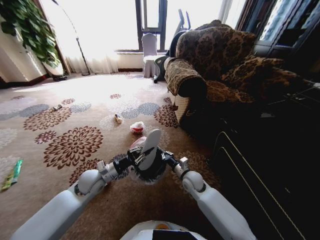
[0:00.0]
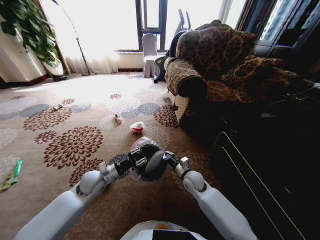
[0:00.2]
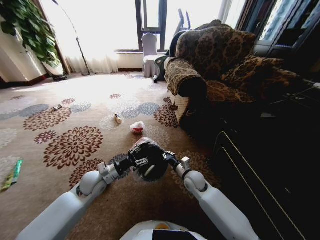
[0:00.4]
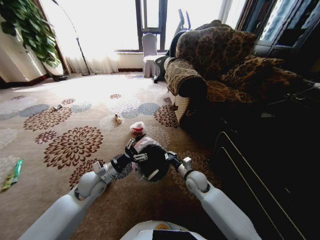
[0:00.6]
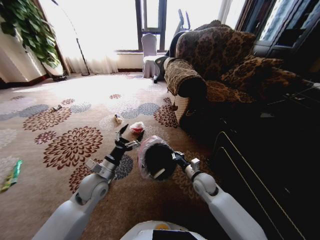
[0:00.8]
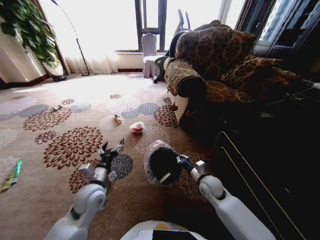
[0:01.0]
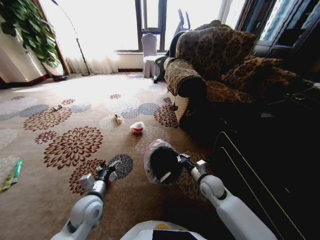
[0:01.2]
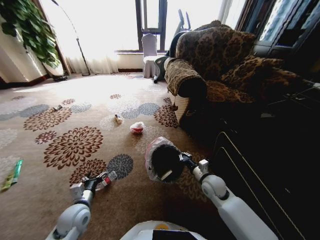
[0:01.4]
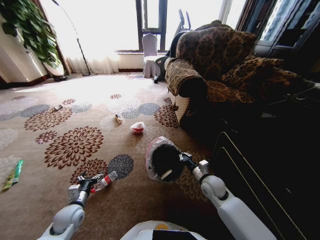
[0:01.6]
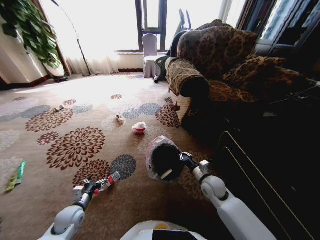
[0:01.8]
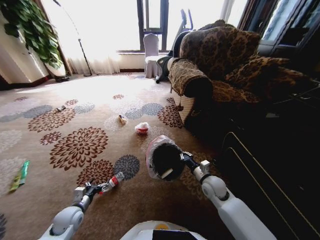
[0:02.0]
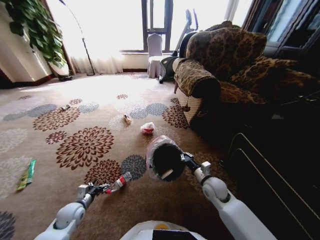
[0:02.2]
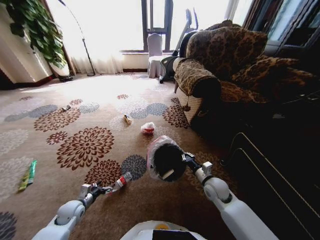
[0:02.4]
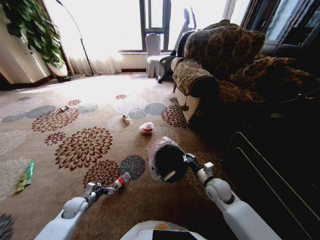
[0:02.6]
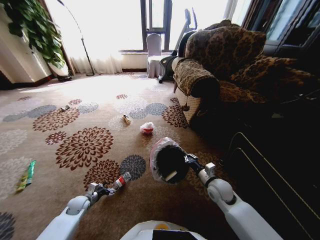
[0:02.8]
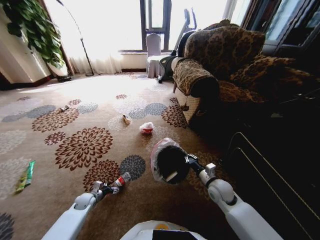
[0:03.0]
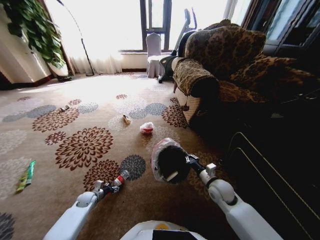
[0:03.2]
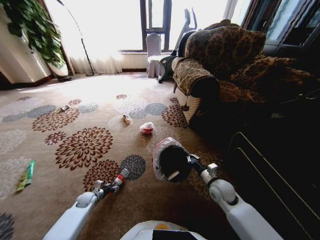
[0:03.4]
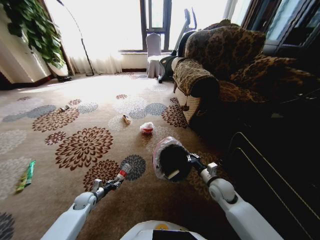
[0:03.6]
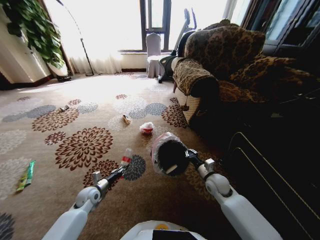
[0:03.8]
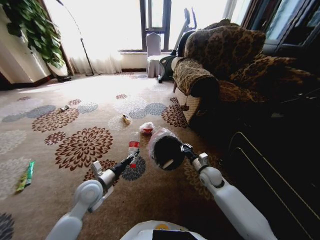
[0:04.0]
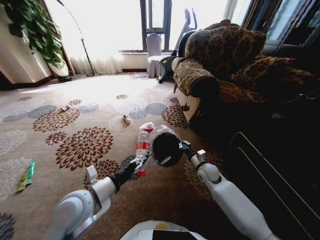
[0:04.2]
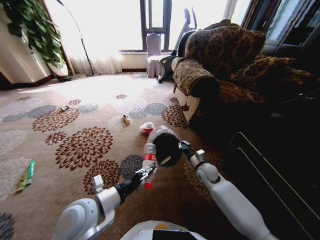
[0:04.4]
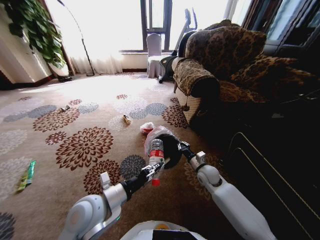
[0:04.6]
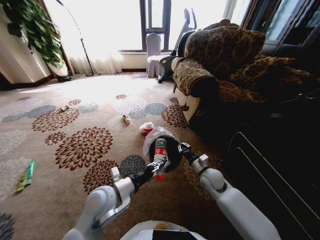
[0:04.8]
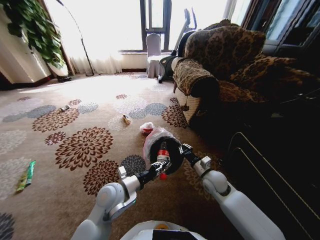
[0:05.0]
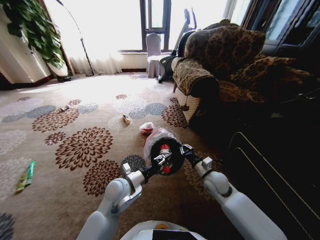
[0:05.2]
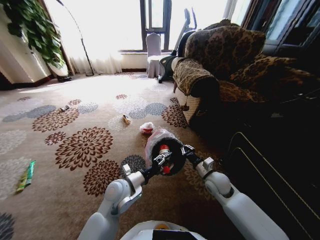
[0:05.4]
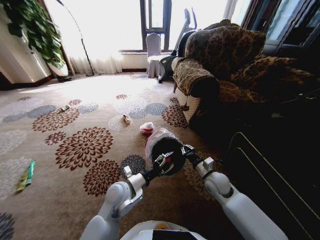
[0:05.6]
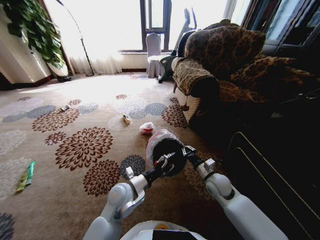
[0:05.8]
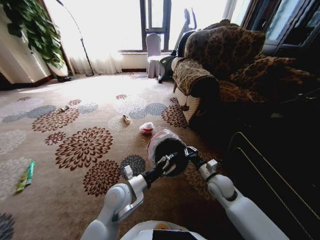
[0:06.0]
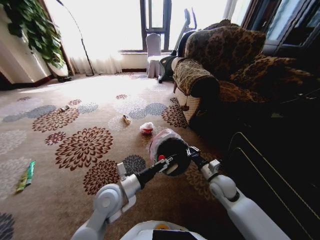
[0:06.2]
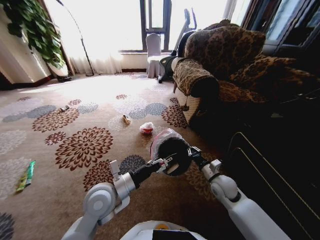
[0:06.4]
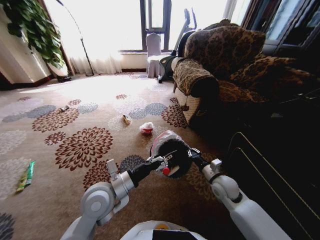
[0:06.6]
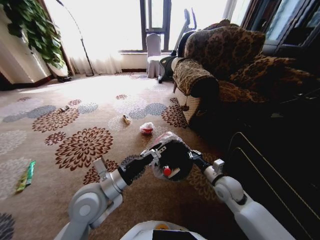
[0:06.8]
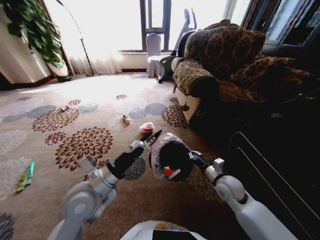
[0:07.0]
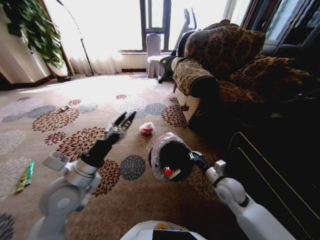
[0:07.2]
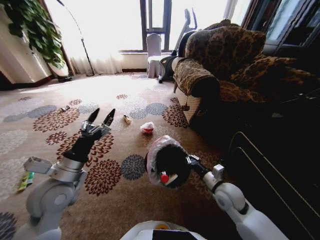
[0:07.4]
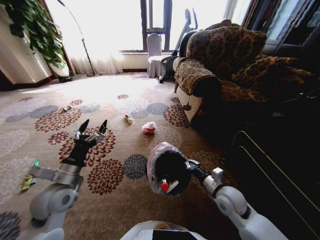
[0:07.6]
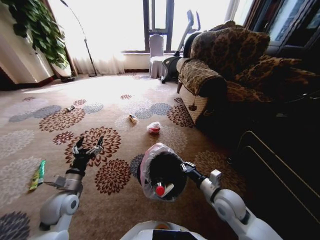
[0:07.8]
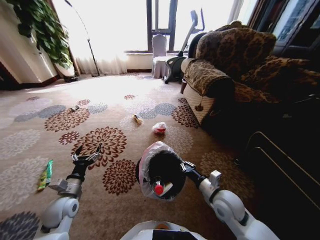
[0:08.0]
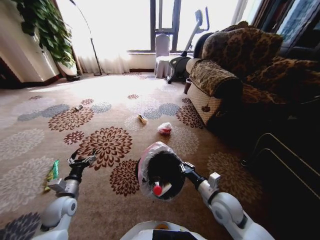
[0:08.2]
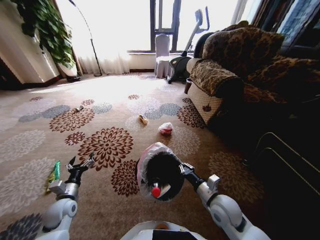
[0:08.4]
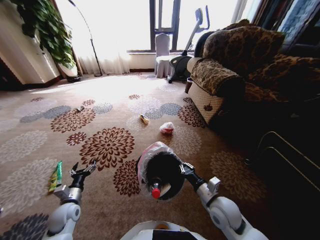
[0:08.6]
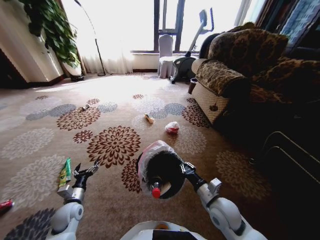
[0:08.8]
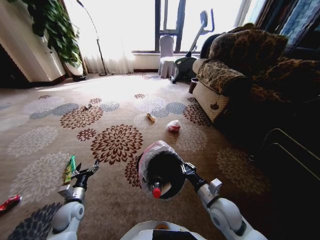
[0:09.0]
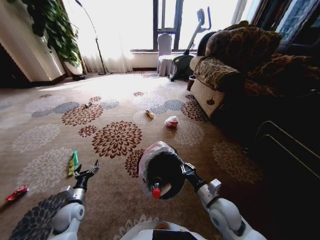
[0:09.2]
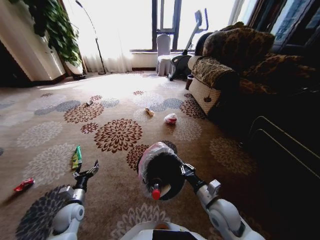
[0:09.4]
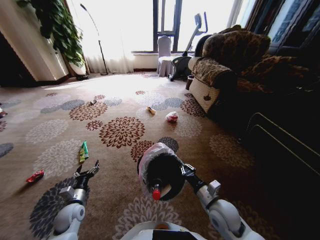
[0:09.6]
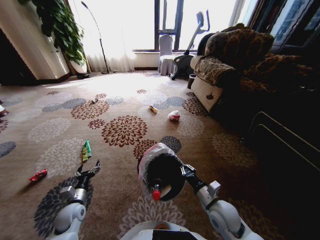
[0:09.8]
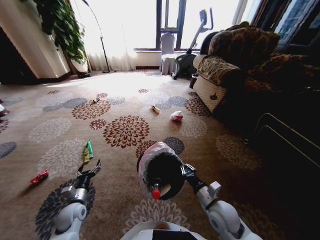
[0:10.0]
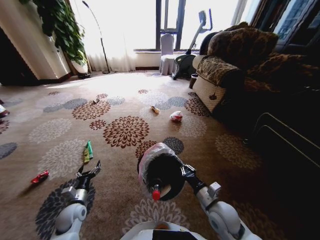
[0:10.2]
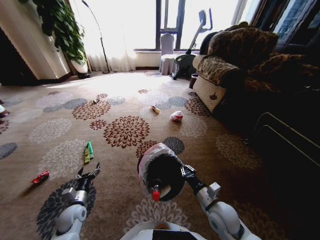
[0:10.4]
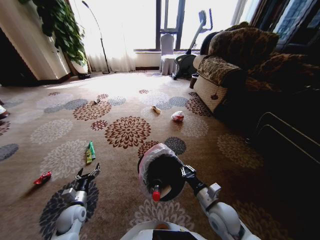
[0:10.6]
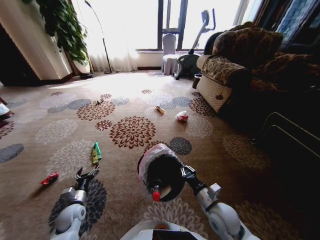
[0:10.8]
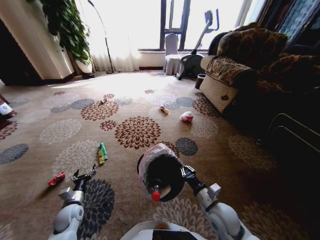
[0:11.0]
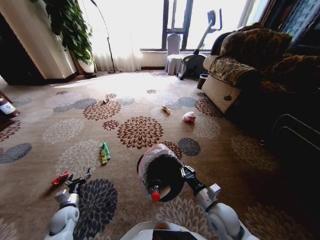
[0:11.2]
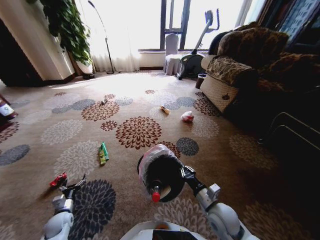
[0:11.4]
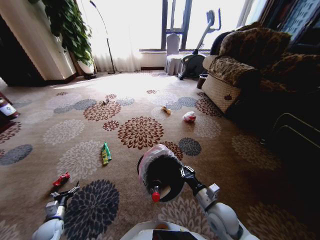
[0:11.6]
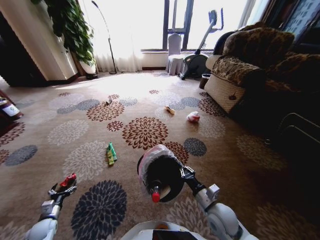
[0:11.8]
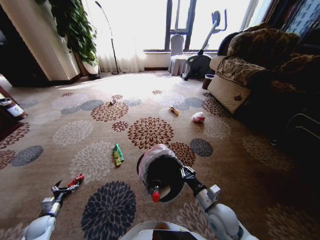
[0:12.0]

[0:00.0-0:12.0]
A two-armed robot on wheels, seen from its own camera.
Task of the whole recording: Pick up the trash from the ground and place it into the trash bin.
0:00.0 to 0:01.6: The left gripper shifts some 15 cm backward, downward and to the left, and opens, while the right gripper shifts some 10 cm to the right.
0:01.6 to 0:03.0: The left gripper is displaced downward and forward by roughly 15 cm.
0:03.0 to 0:04.4: The right gripper is displaced forward by some 10 cm; the left gripper heads upward and to the right, covering roughly 35 cm, and closes its fingers.
0:04.4 to 0:06.0: The left gripper heads to the right, downward and forward, covering some 10 cm, and opens its fingers. Meanwhile the right gripper goes about 5 cm backward.
0:06.0 to 0:07.6: The right gripper heads backward, covering approximately 5 cm, while the left gripper moves to the left, about 20 cm.
0:07.6 to 0:09.0: The left gripper goes some 20 cm downward. Meanwhile the right gripper changes place by about 5 cm.
0:10.4 to 0:12.0: The left gripper shifts roughly 20 cm to the left and downward.

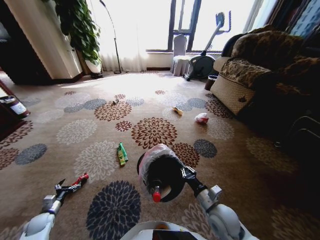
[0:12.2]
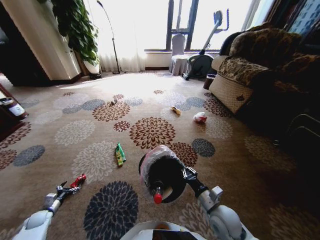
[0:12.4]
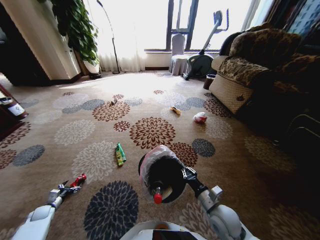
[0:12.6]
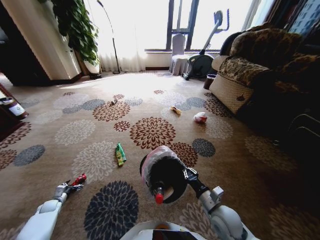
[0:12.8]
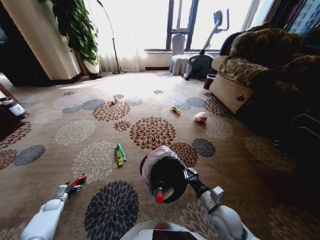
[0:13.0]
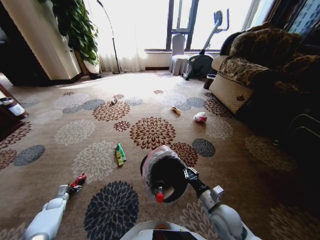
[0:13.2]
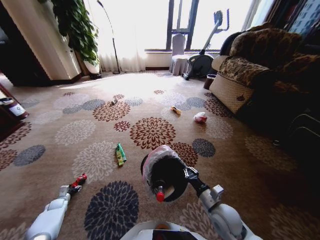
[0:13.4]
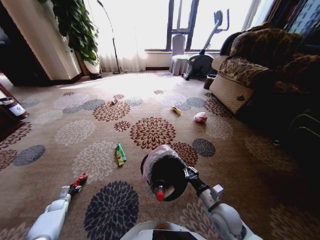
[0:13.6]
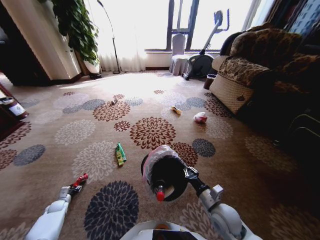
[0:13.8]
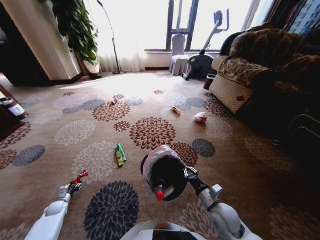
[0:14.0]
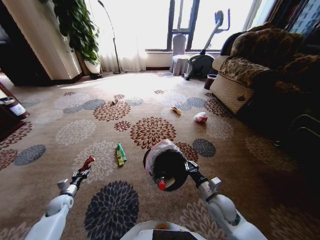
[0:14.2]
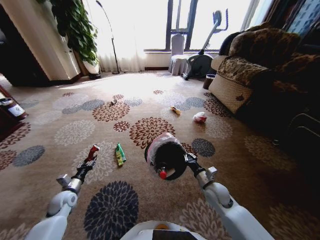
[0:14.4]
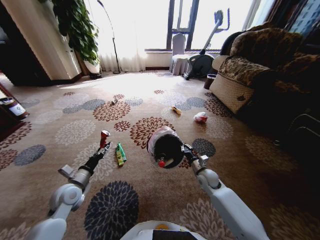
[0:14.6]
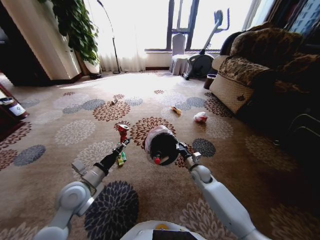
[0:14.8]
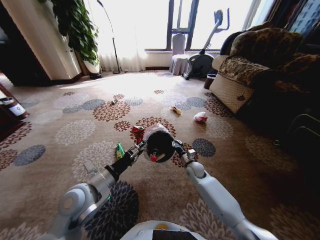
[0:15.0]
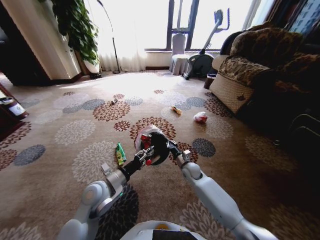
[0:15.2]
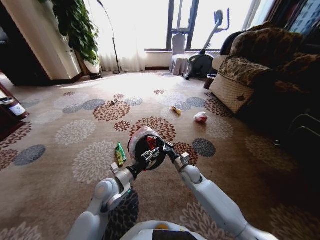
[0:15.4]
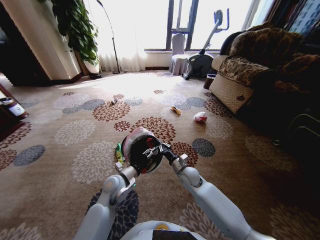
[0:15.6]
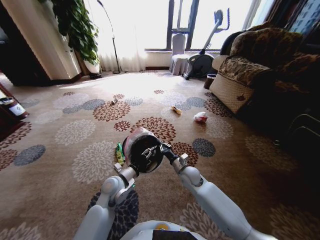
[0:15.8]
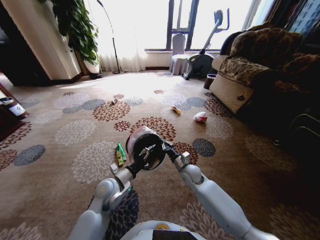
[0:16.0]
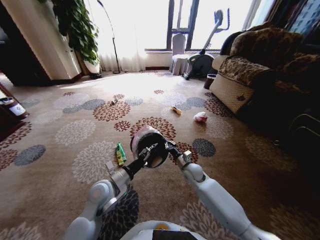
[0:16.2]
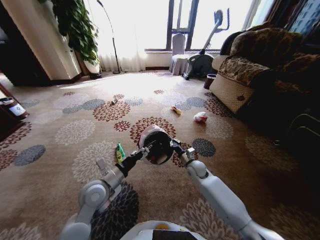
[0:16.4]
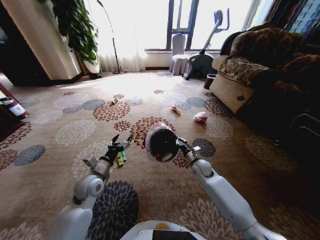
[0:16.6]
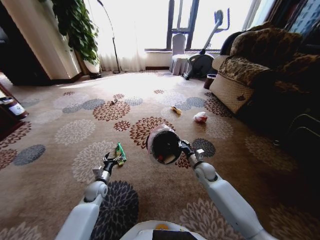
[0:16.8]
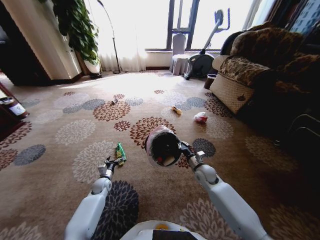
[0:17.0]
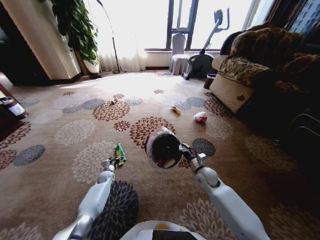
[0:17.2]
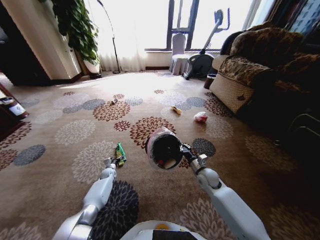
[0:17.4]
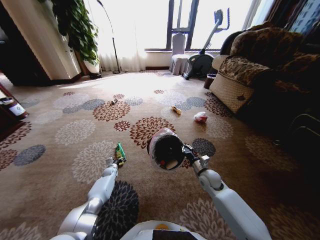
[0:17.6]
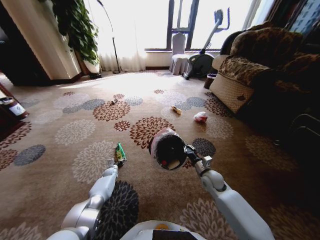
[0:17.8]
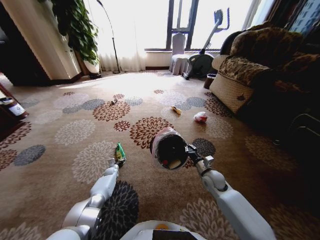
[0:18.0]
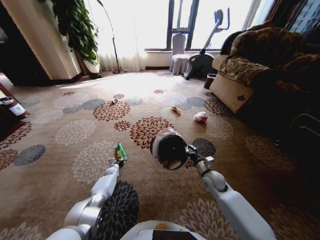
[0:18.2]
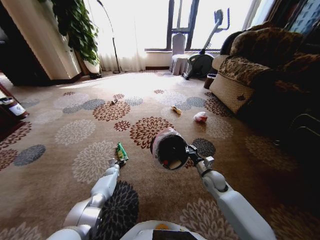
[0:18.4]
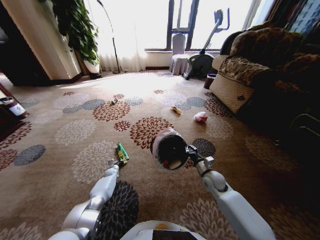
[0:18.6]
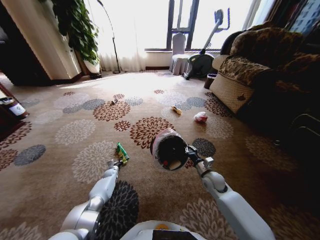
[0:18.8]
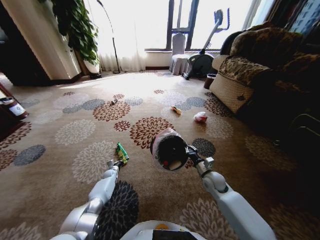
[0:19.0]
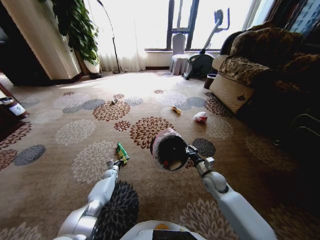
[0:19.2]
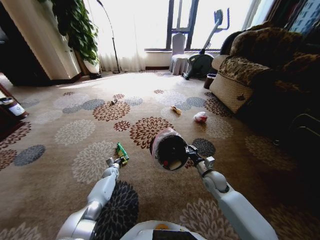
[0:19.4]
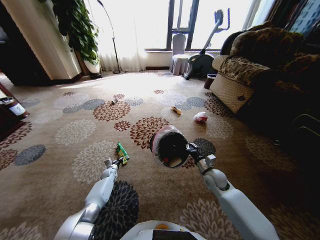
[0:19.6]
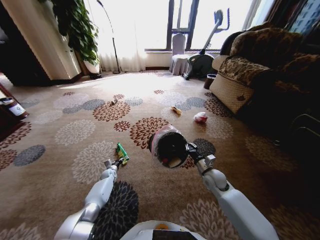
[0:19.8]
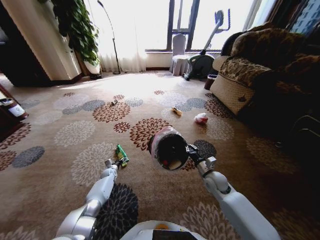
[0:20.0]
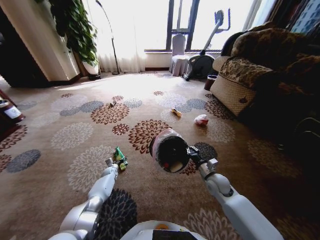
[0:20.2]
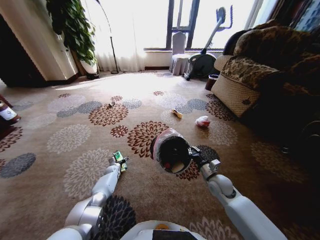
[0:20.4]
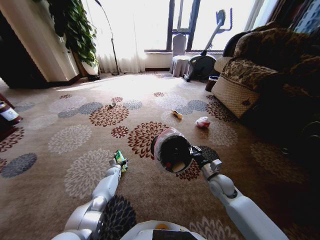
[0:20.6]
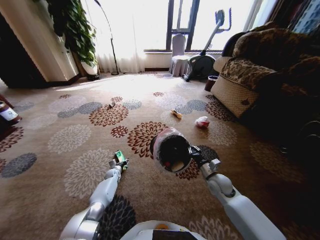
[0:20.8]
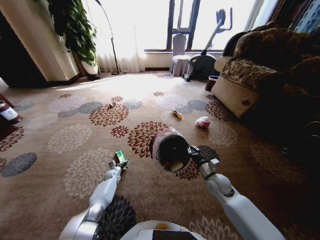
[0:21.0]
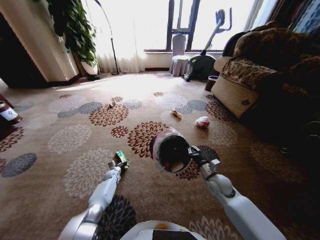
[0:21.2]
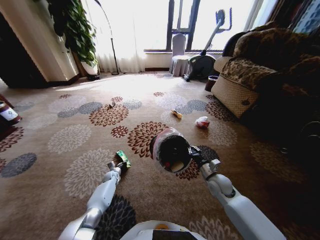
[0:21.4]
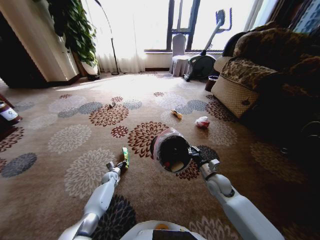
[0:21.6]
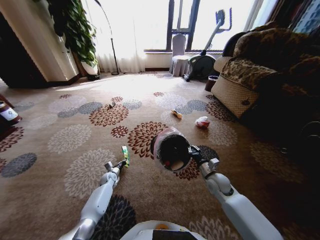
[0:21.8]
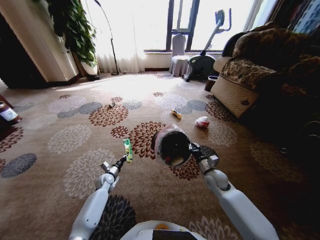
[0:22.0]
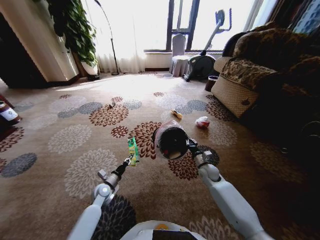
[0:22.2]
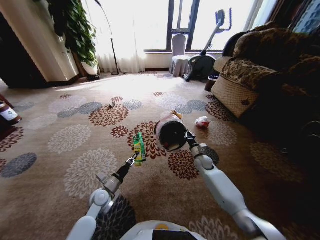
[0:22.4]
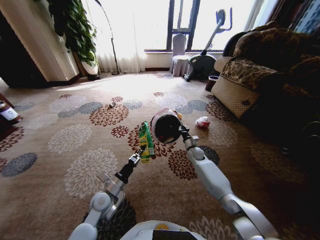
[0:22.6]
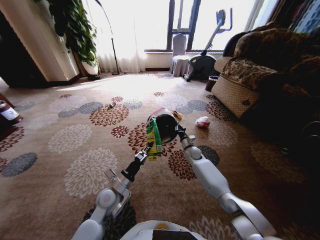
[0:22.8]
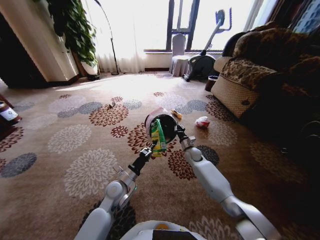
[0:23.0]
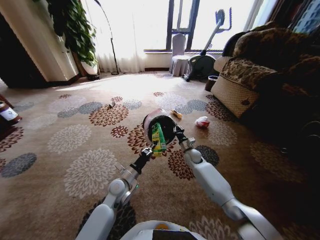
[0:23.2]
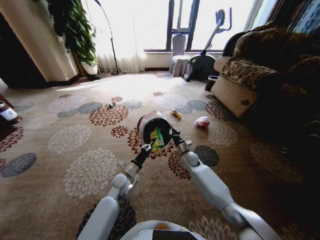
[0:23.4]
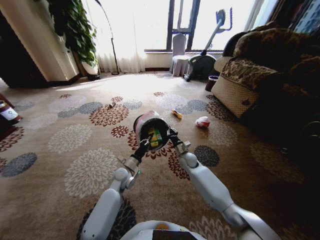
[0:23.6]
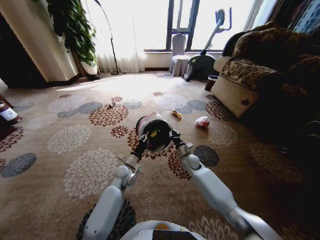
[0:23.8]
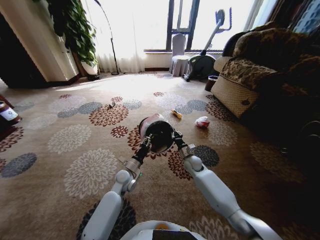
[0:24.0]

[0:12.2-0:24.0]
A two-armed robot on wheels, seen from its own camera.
Task of the whole recording: Pick up the trash from the ground and place it into the trash bin.
0:12.2 to 0:13.6: The left gripper travels forward and downward by about 10 cm, and closes up.
0:13.6 to 0:15.2: The left gripper is displaced to the right and upward by some 50 cm; the right gripper is displaced forward by roughly 20 cm.
0:15.2 to 0:16.6: The right gripper moves about 5 cm, while the left gripper shifts by some 5 cm, and opens.
0:16.6 to 0:18.2: The right gripper moves backward, roughly 5 cm; the left gripper travels downward and forward by approximately 35 cm, and closes its fingers.
0:18.2 to 0:19.6: The left gripper closes and opens again.
0:19.6 to 0:21.0: The left gripper opens, then closes once more.
0:21.0 to 0:22.6: The left gripper shifts some 30 cm upward, backward and to the right, and closes its fingers; the right gripper shifts some 20 cm forward.
0:22.6 to 0:24.0: The right gripper is displaced backward by approximately 5 cm. Meanwhile the left gripper is displaced forward and to the right by some 10 cm, and opens its fingers.
